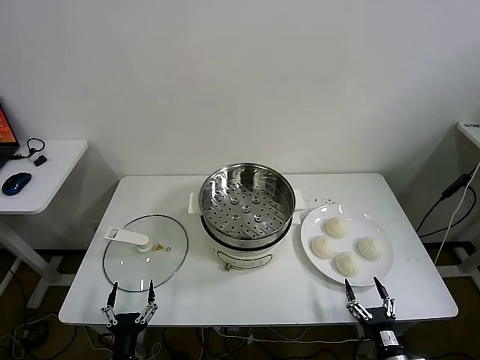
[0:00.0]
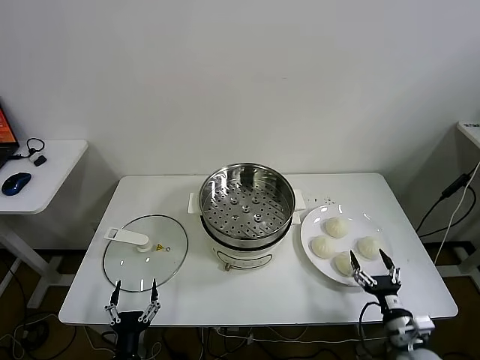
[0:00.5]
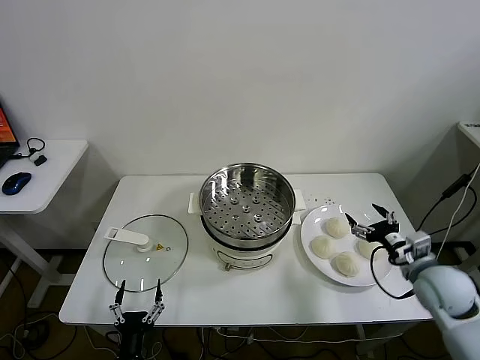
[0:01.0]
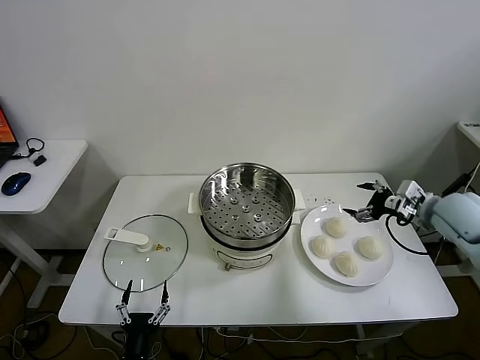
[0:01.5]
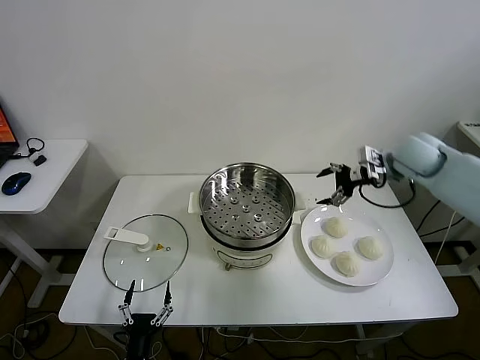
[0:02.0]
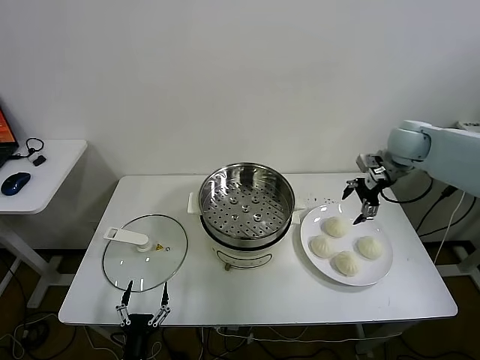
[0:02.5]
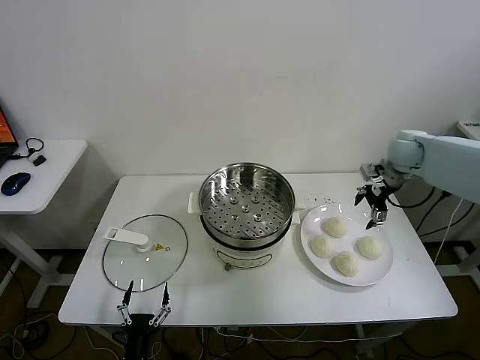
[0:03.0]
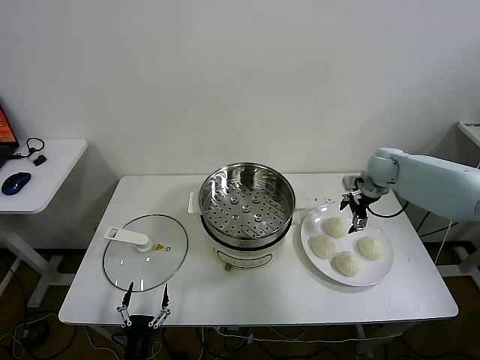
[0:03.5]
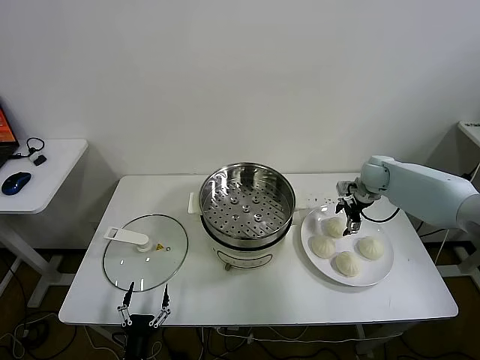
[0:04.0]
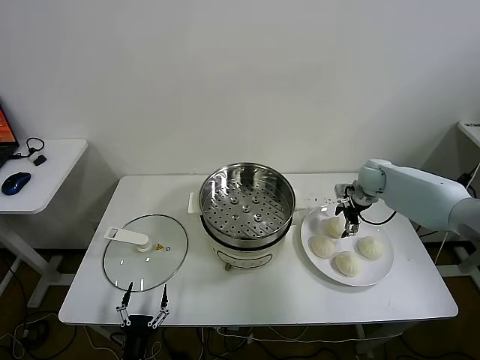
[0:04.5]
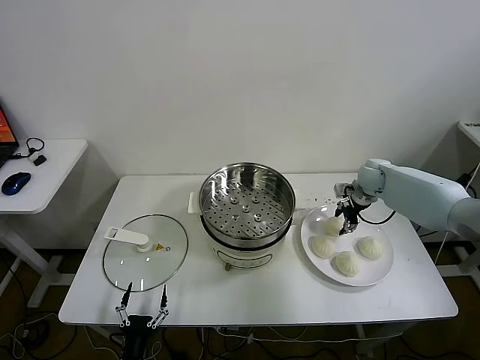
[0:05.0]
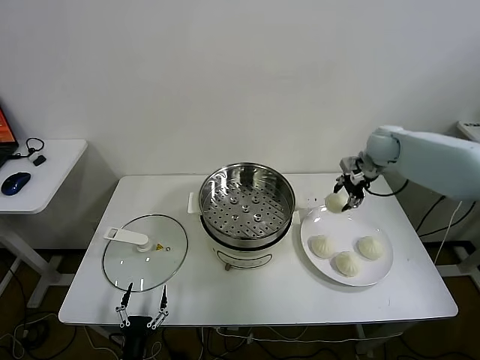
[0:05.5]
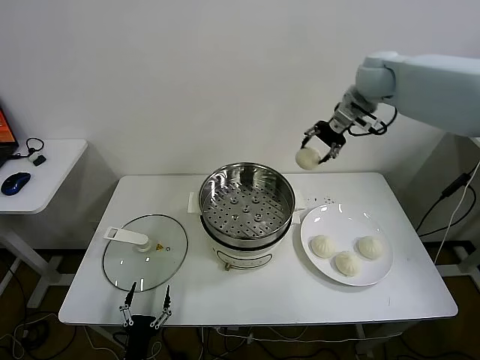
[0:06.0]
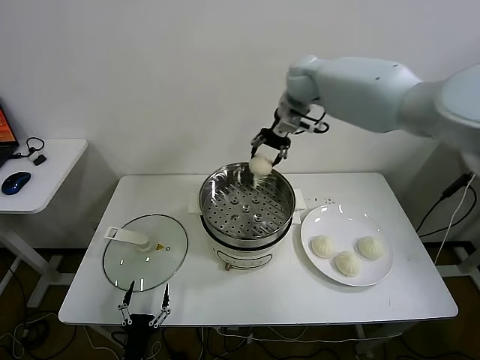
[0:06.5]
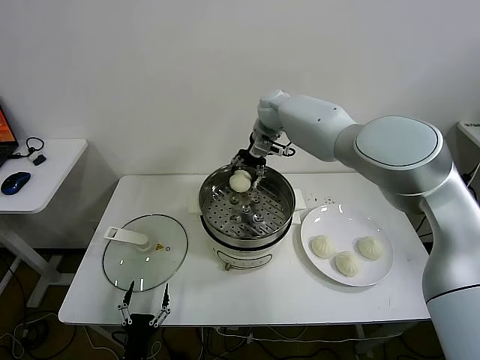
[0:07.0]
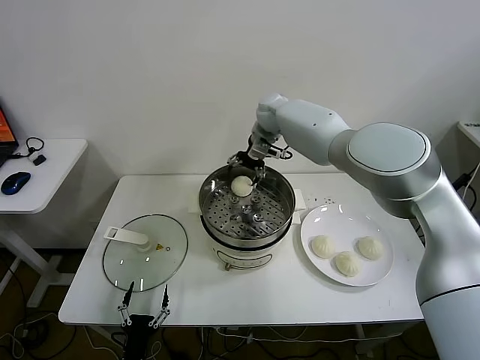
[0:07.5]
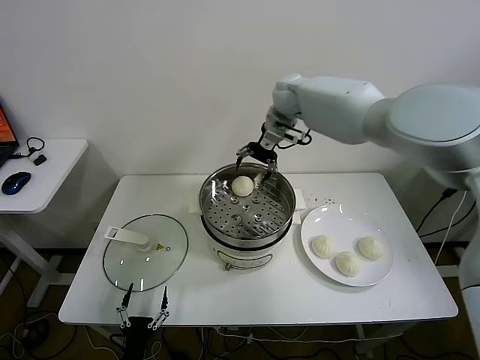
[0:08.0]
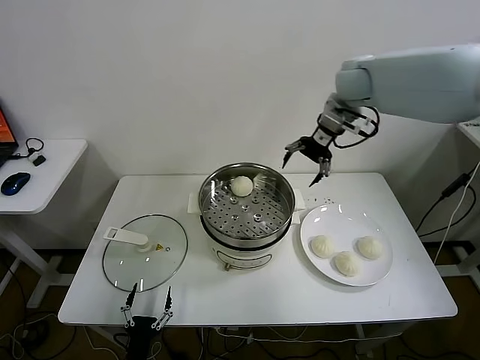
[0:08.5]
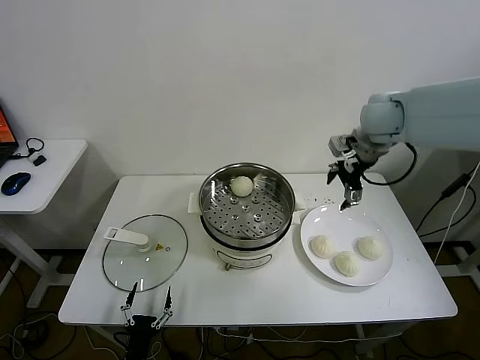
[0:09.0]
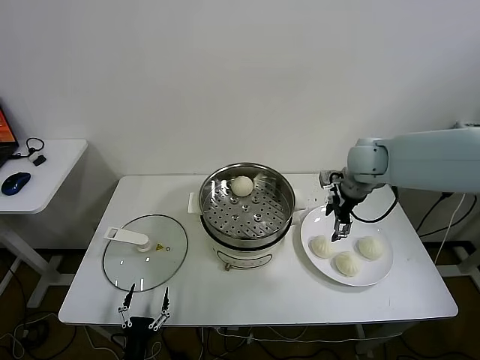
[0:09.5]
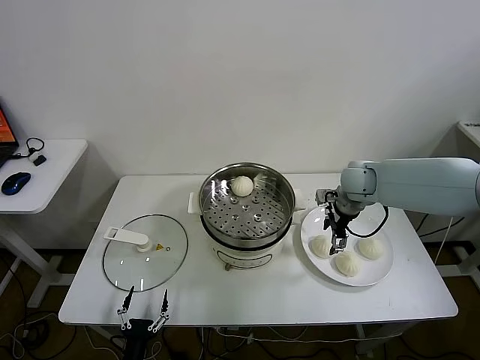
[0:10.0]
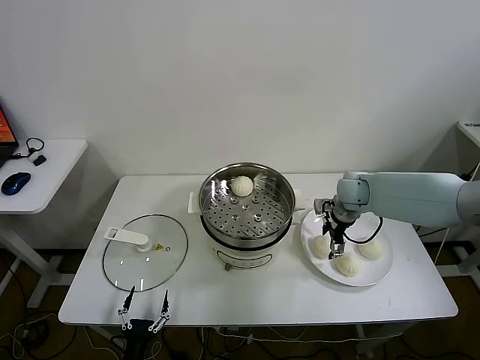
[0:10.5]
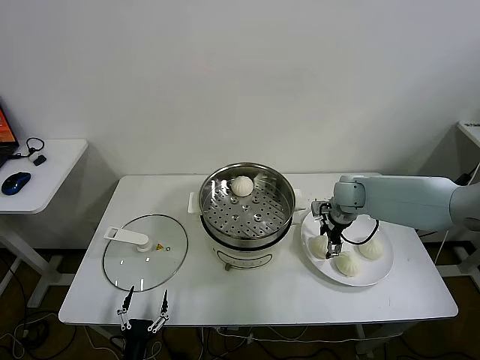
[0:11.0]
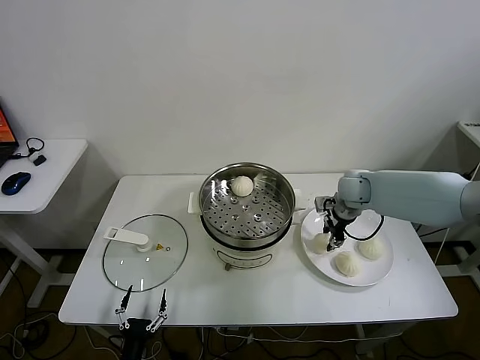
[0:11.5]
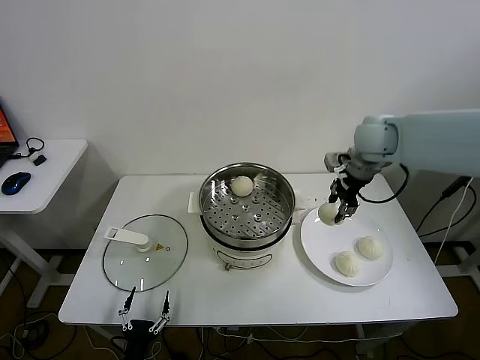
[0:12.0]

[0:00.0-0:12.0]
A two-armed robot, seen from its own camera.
Task of the whole recording: take steamed baozi put them in steamer.
Step, 0:00.0 to 0:04.5: Grasp the baozi in the plate with right gripper.
Step, 0:05.0 to 0:07.5: Place the baozi on the steamer with right gripper.
Step, 0:08.0 to 0:11.0: Grasp the baozi in the plate with right gripper.
0:02.0 to 0:04.0: The right gripper moves downward, approximately 15 cm.
0:04.0 to 0:06.0: The right gripper moves upward, roughly 30 cm, and closes its fingers.
0:06.0 to 0:08.0: The right gripper goes approximately 15 cm to the left and downward, and opens up.
0:08.0 to 0:10.0: The right gripper is displaced downward, to the right and backward by some 25 cm.
0:10.0 to 0:12.0: The right gripper moves upward, about 15 cm, and closes its fingers.

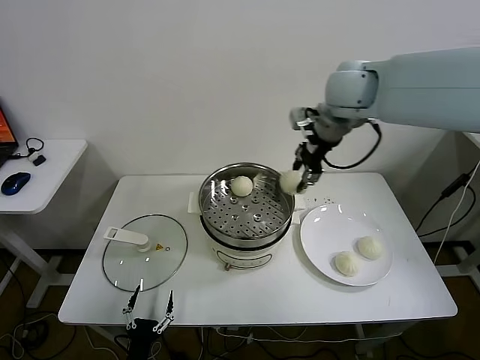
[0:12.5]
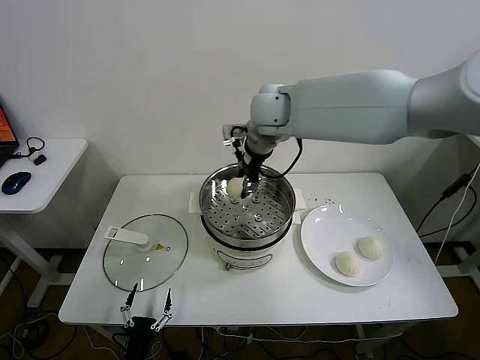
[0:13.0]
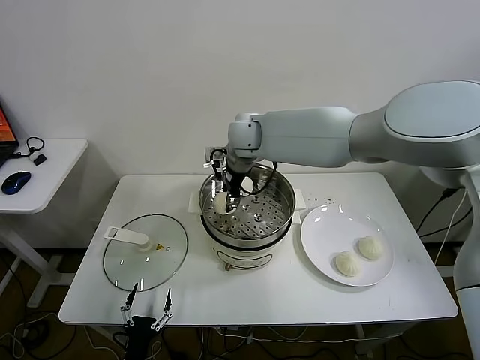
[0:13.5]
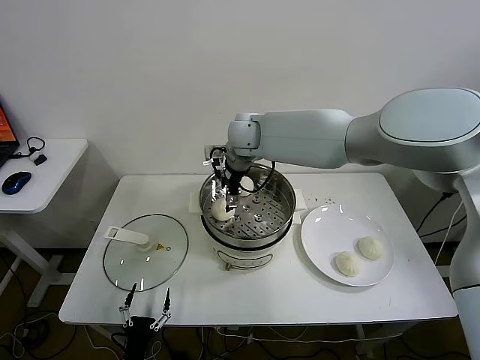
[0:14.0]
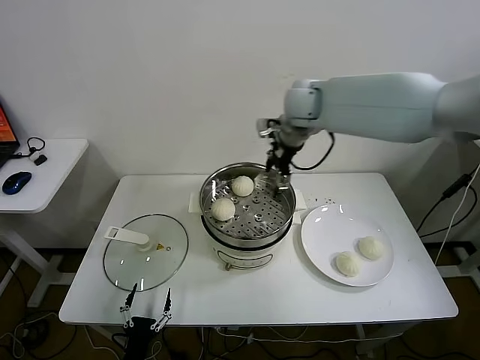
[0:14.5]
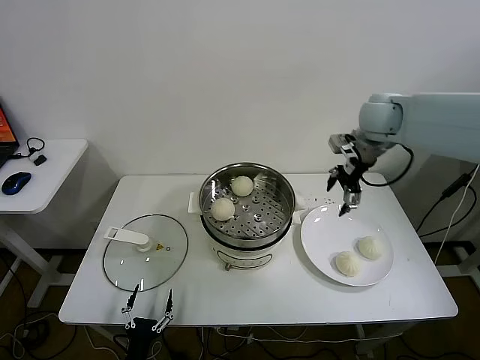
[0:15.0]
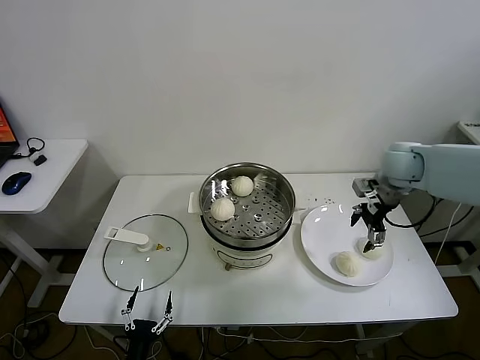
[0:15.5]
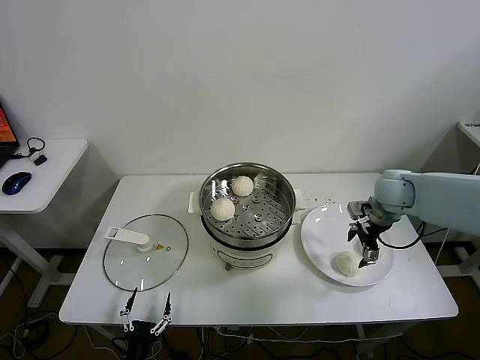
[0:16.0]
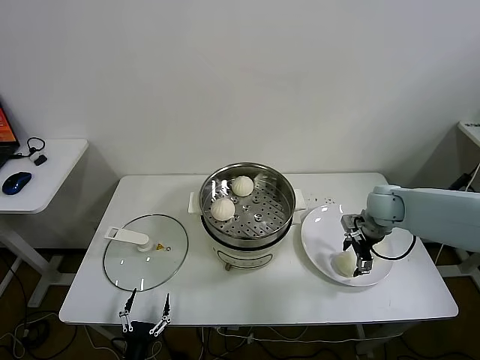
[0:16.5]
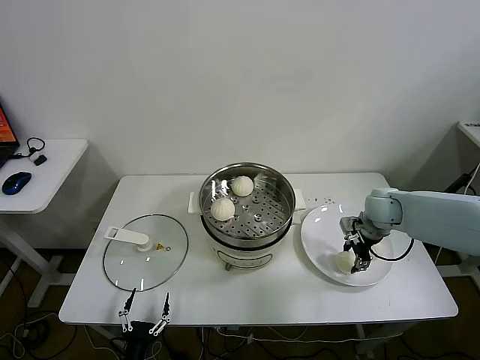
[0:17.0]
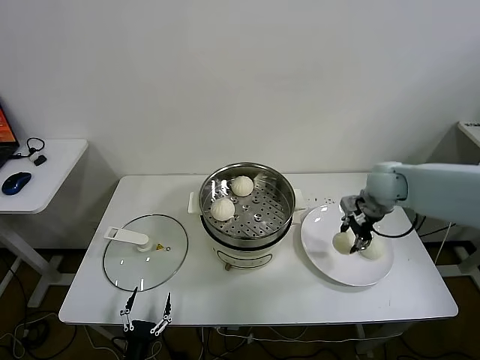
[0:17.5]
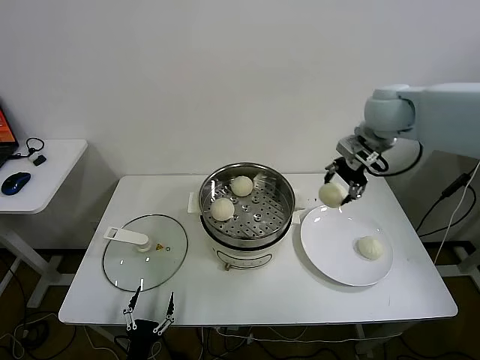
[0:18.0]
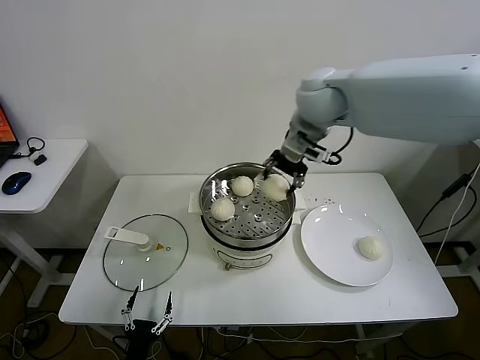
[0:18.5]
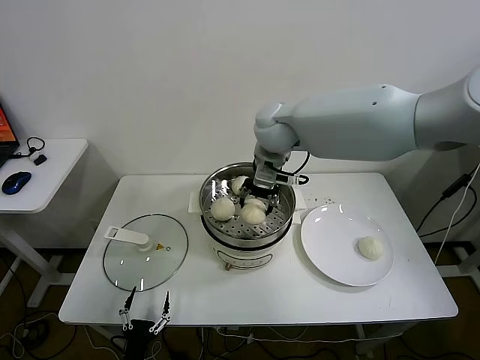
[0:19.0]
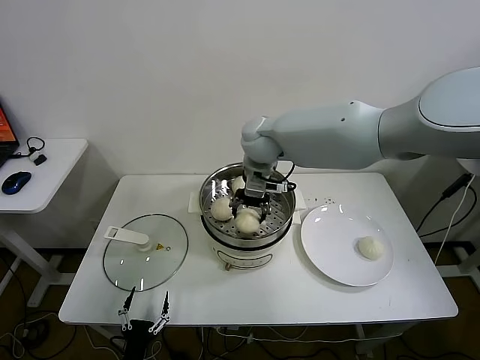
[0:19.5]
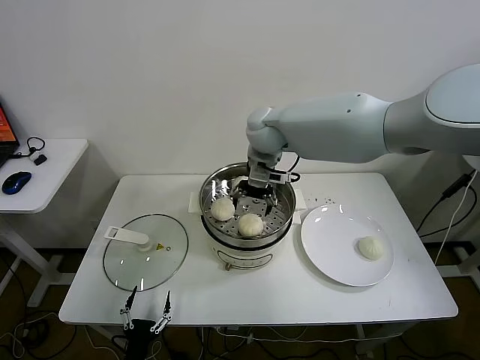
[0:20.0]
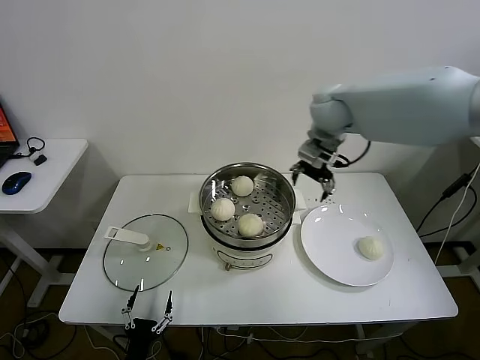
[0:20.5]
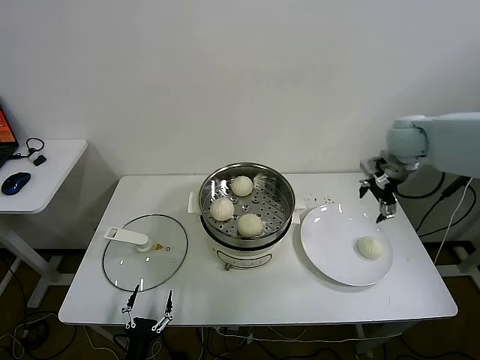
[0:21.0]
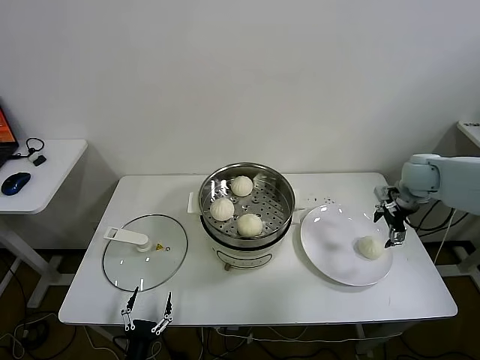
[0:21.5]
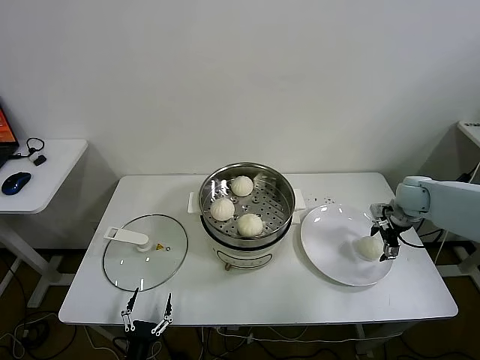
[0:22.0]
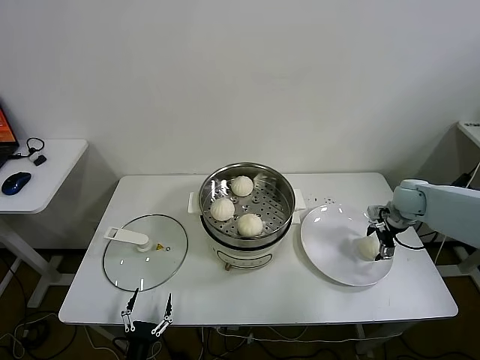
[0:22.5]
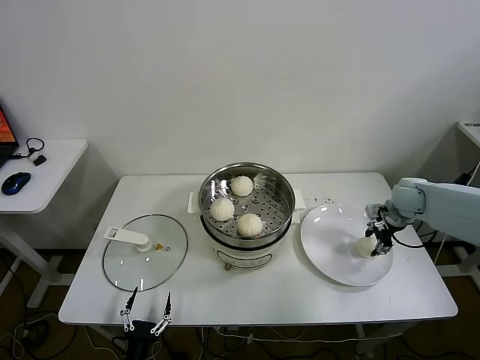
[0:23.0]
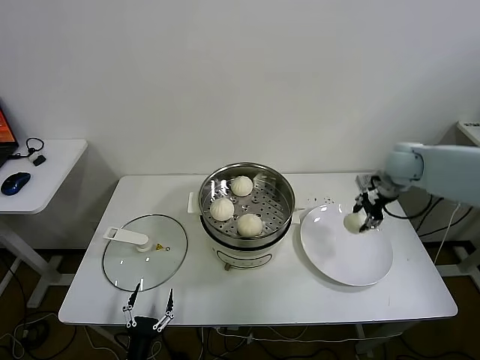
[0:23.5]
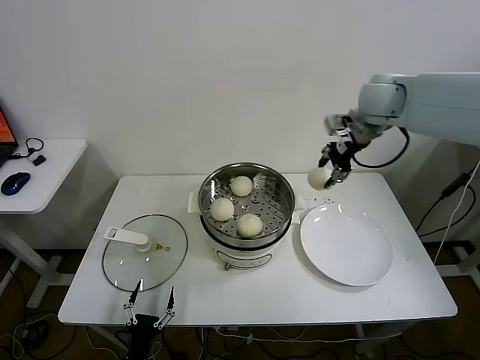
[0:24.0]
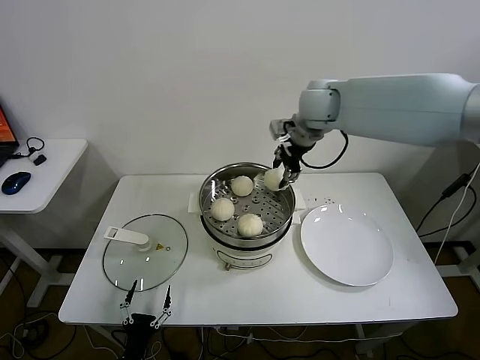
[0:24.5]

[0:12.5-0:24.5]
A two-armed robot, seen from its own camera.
Task of the whole recording: take steamed baozi put them in steamer.
Step, 0:14.0 to 0:17.0: Grasp the baozi in the plate with right gripper.
Step, 0:17.5 to 0:19.5: Place the baozi on the steamer with right gripper.
Step, 0:20.0 to 0:22.5: Grasp the baozi in the plate with right gripper.
0:12.5 to 0:14.5: The right gripper is displaced forward and downward by some 10 cm, goes to the left and returns, some 15 cm each way, and opens its fingers.
0:14.5 to 0:16.5: The right gripper goes some 30 cm downward, to the right and backward.
0:16.5 to 0:18.5: The right gripper heads upward and to the left, covering approximately 35 cm, and closes.
0:18.5 to 0:20.5: The right gripper goes to the left and returns, roughly 10 cm each way, and opens its fingers.
0:20.5 to 0:22.5: The right gripper is displaced to the right and downward by about 35 cm.
0:22.5 to 0:24.5: The right gripper goes approximately 35 cm to the left and upward, and closes up.

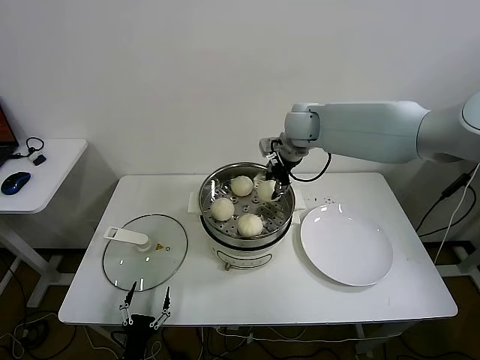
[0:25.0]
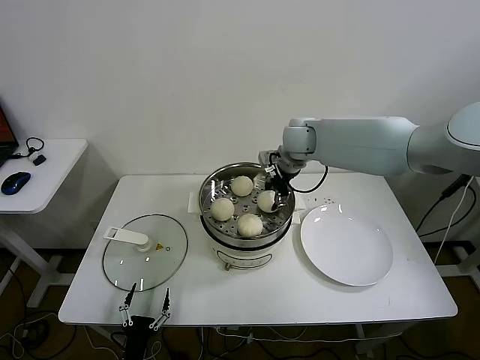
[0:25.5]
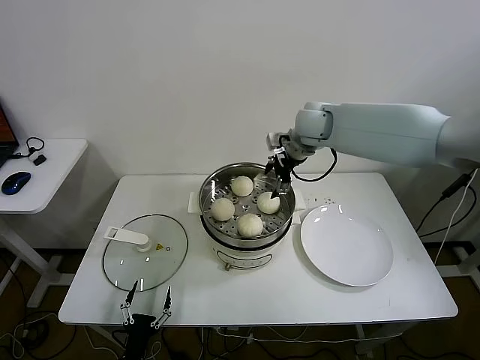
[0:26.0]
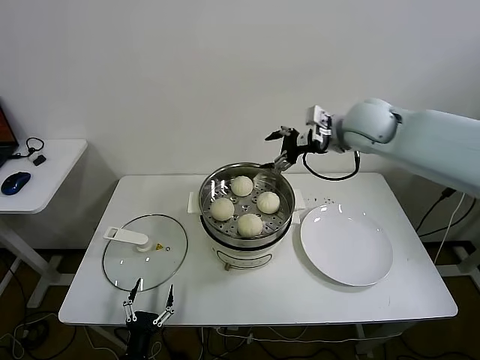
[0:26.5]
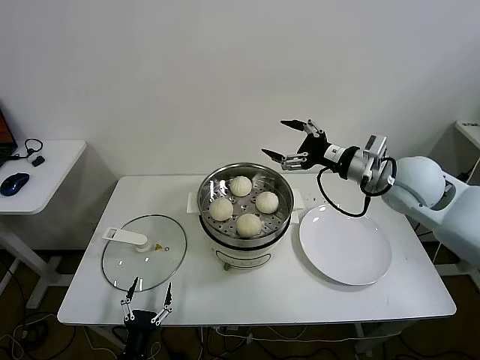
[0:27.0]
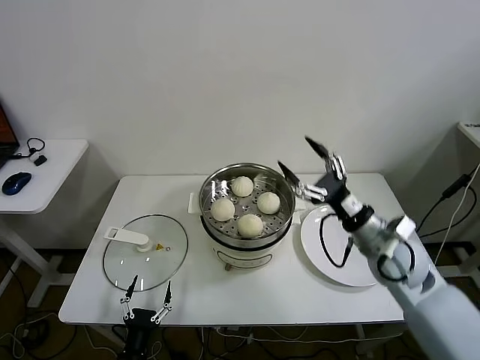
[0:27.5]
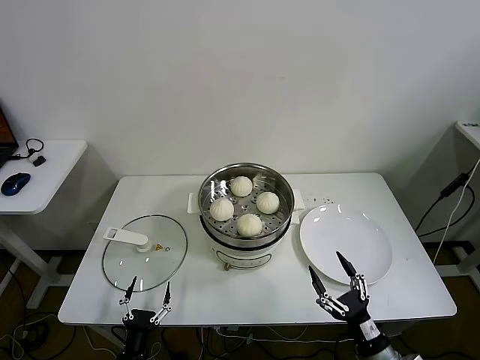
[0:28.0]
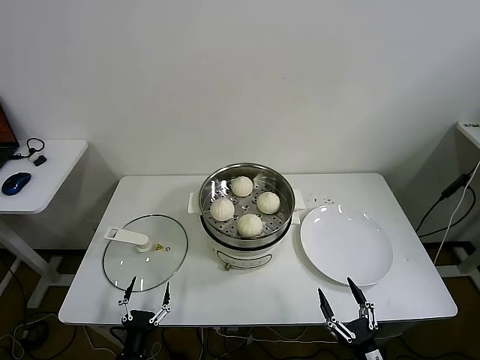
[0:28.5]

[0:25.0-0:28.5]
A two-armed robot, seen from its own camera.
Task of the whole recording: take steamed baozi put them in steamer.
0:25.0 to 0:27.0: The right gripper shifts about 25 cm backward and to the right, and opens.
0:27.0 to 0:28.5: The right gripper is displaced downward and backward by about 50 cm.
